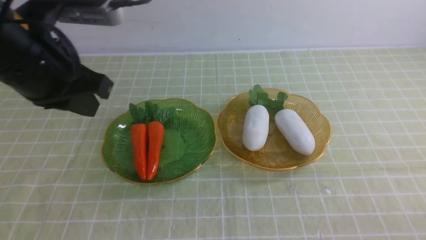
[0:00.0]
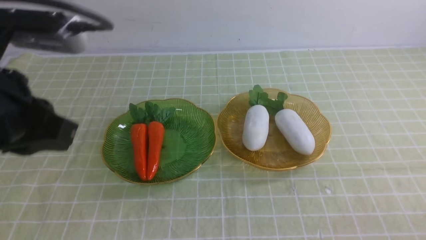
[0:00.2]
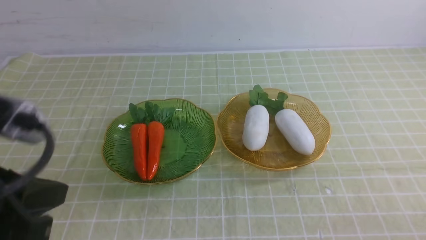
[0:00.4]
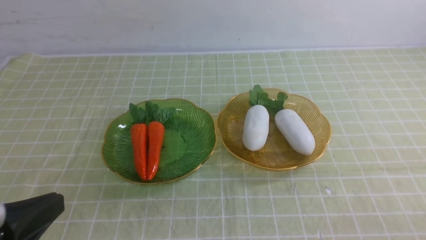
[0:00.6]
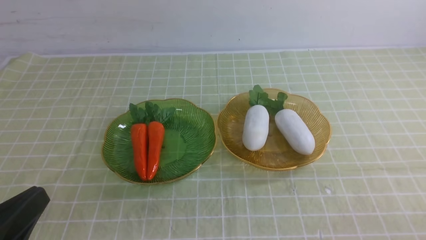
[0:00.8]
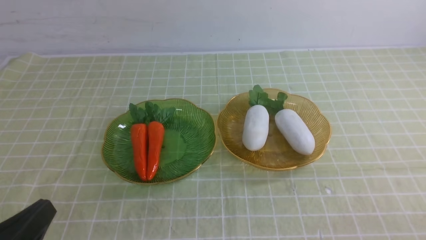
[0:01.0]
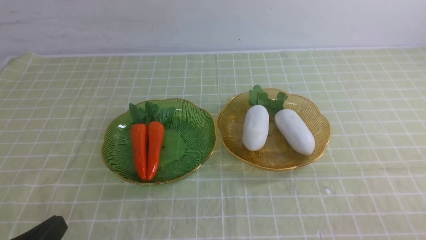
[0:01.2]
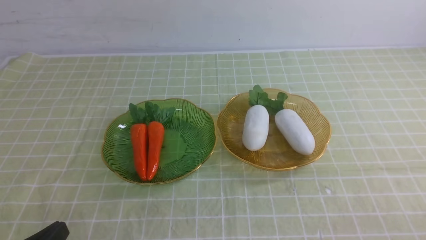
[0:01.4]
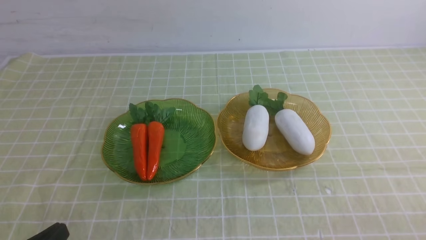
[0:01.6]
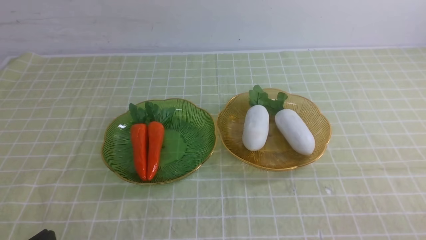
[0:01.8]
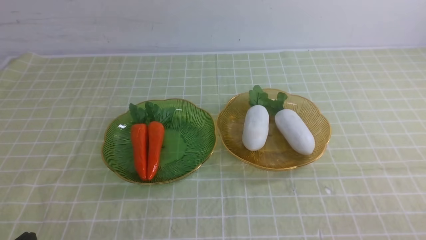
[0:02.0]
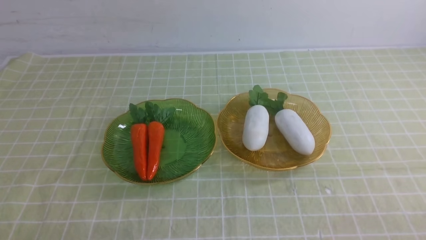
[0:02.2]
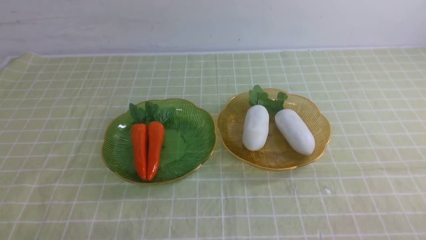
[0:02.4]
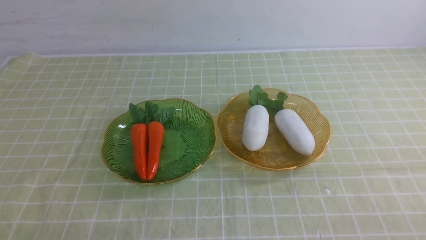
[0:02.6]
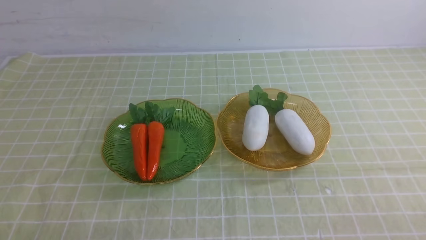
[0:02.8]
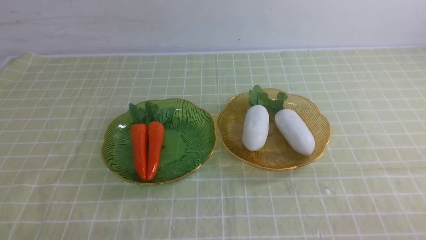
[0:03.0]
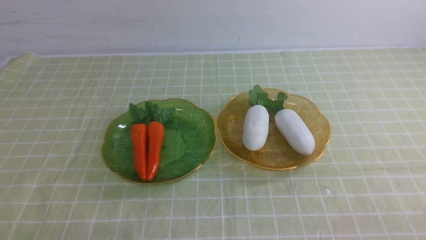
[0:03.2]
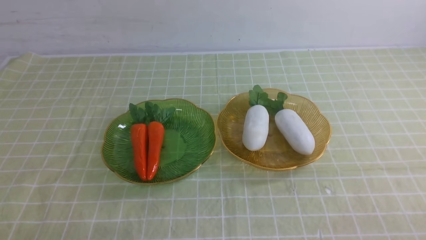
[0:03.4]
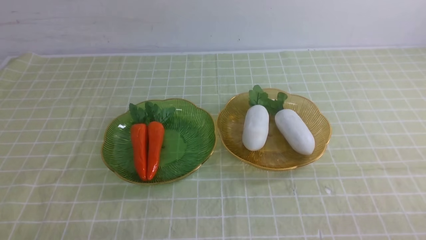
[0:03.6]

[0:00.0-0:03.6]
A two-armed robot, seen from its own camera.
0:00.0 to 0:01.8: The left gripper goes about 30 cm backward and downward.
